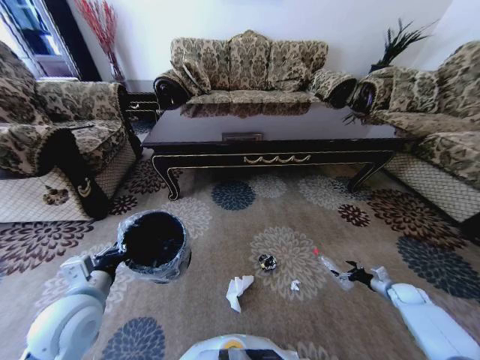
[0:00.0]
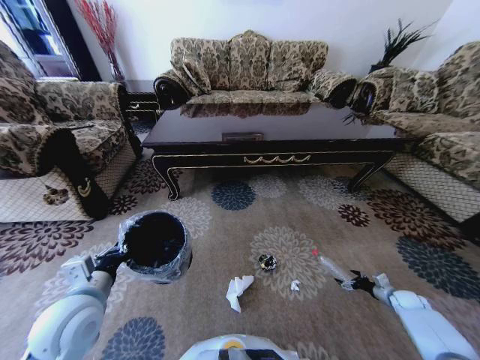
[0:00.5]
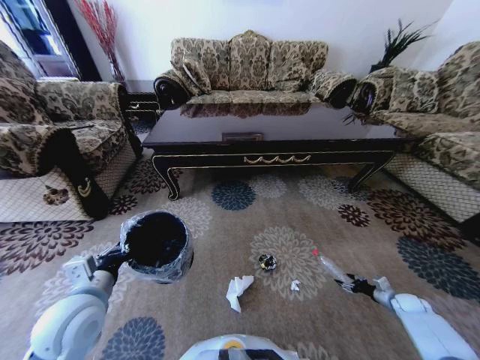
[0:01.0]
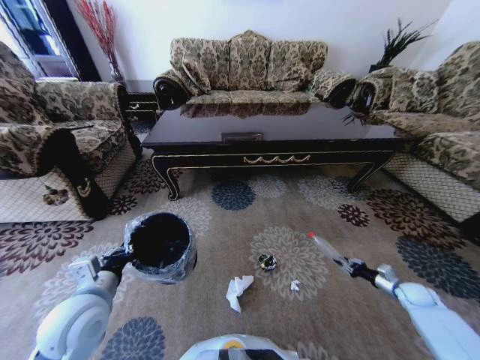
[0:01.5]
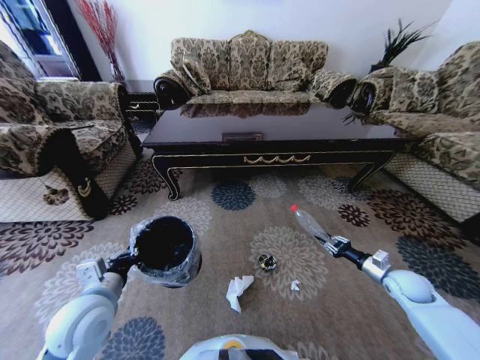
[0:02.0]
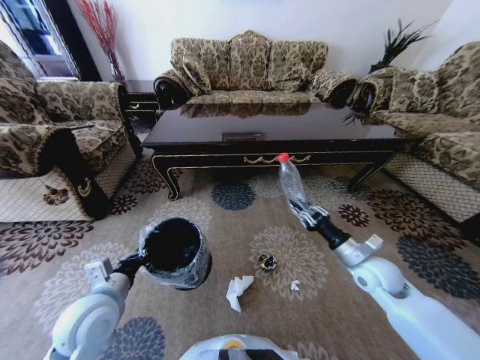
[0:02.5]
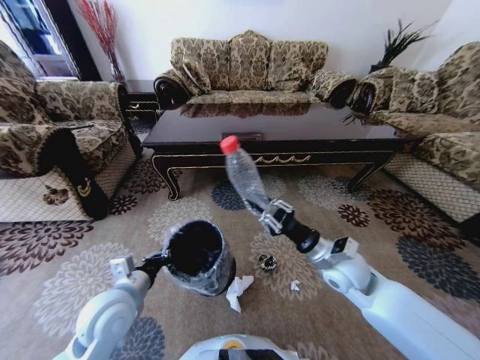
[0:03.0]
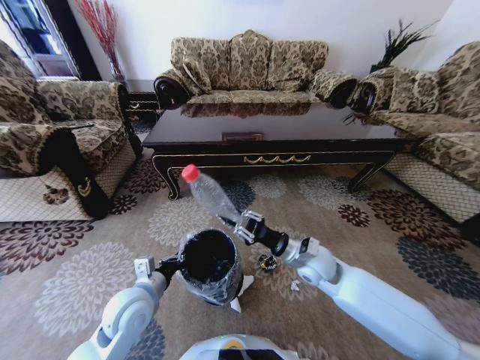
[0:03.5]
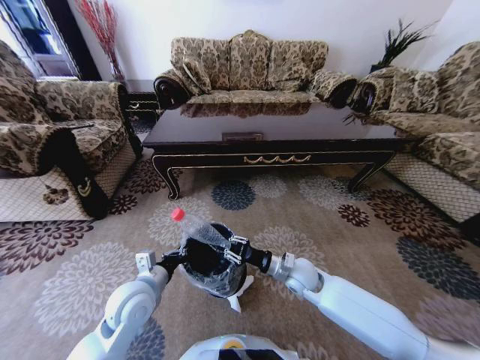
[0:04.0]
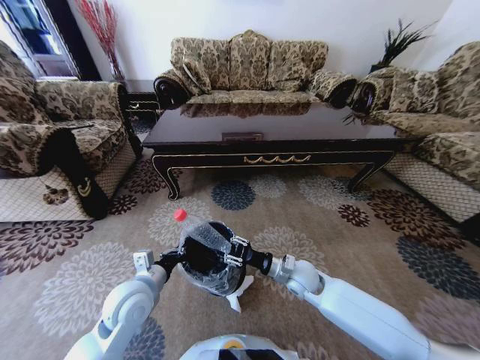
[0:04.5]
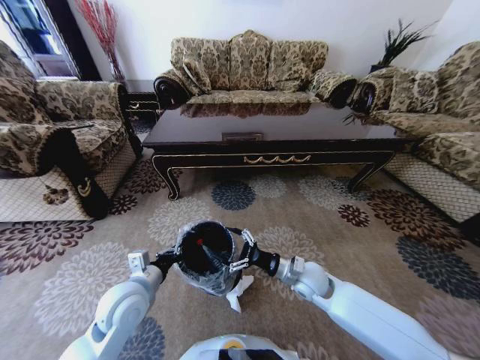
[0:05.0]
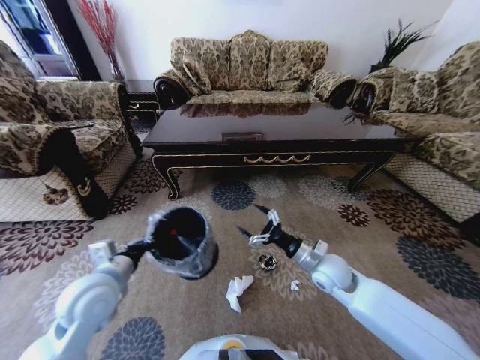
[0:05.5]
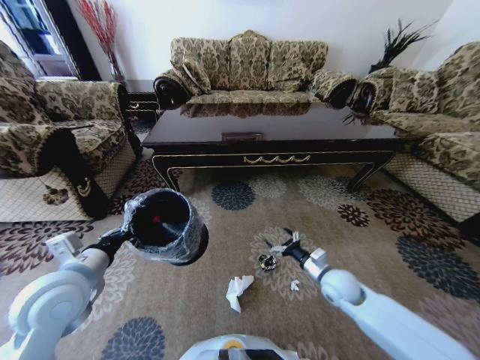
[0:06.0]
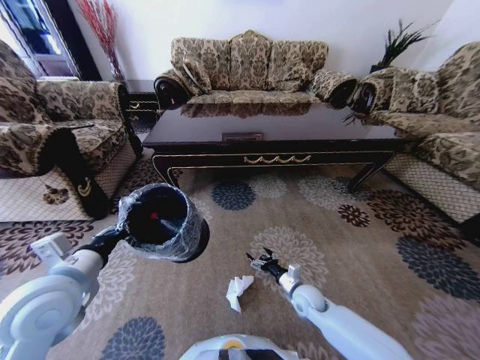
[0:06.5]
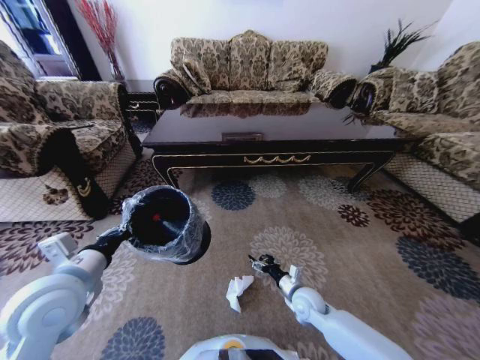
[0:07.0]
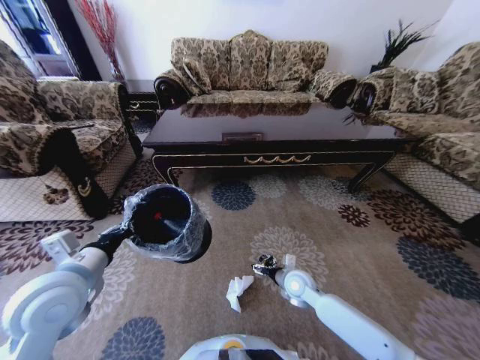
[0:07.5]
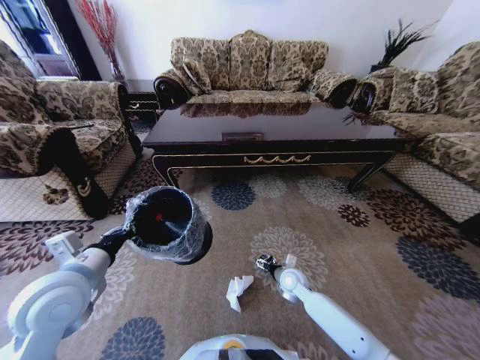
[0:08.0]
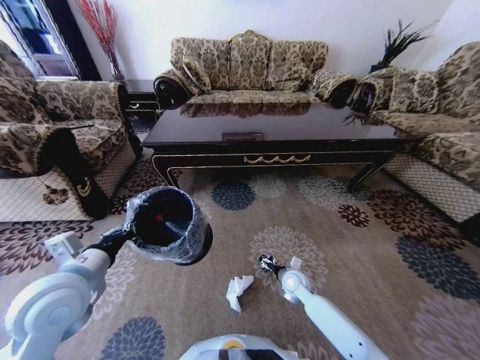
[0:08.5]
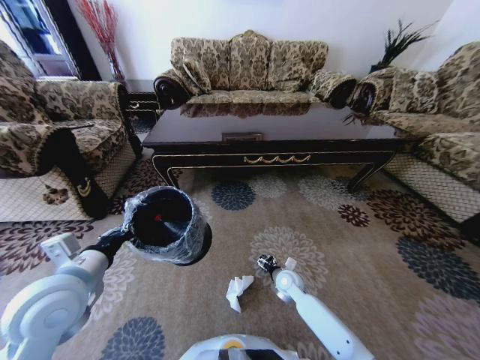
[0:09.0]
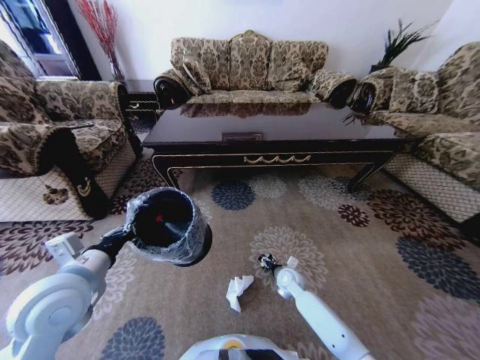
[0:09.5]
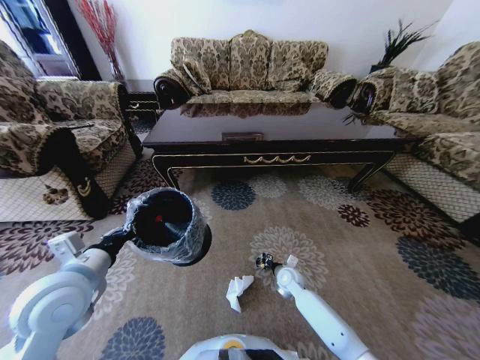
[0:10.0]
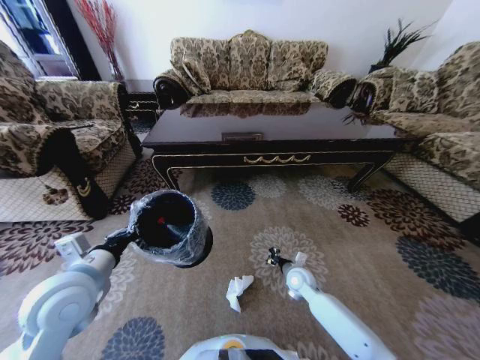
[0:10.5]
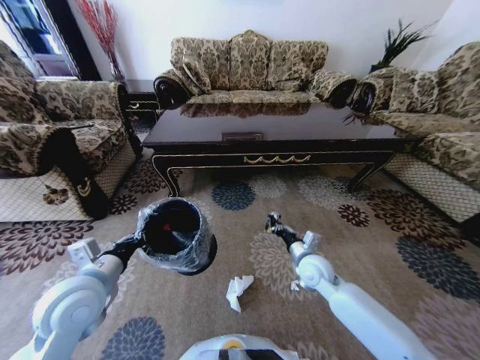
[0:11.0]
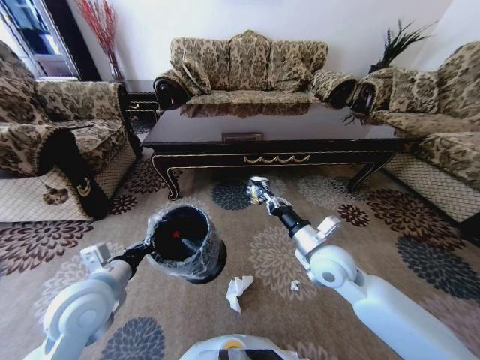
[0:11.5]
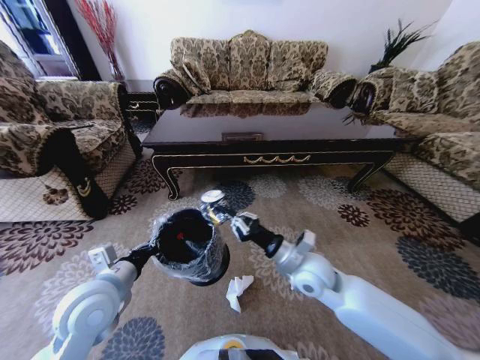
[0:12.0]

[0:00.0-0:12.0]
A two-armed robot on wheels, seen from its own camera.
Task of the whole recording: Move to the front of the table and pick up the trash from the floor, then place it into the trash bin.
0:00.0 to 0:02.0: The right gripper heads upward and to the left, covering approximately 15 cm, and closes.
0:02.0 to 0:04.0: The left gripper heads to the right, covering roughly 5 cm; the right gripper is displaced to the left by approximately 30 cm.
0:04.0 to 0:06.0: The left gripper goes about 15 cm upward and to the left; the right gripper goes roughly 10 cm to the right, and opens its fingers.
0:06.0 to 0:08.0: The right gripper travels to the left and downward by some 15 cm.
0:08.0 to 0:10.0: The right gripper closes.
0:10.0 to 0:12.0: The right gripper goes approximately 25 cm upward, while the left gripper moves roughly 5 cm.

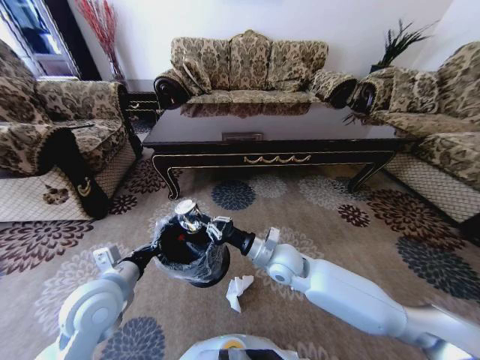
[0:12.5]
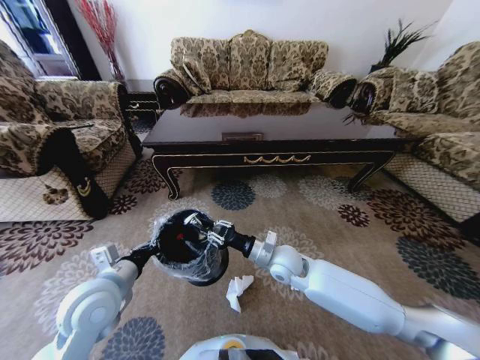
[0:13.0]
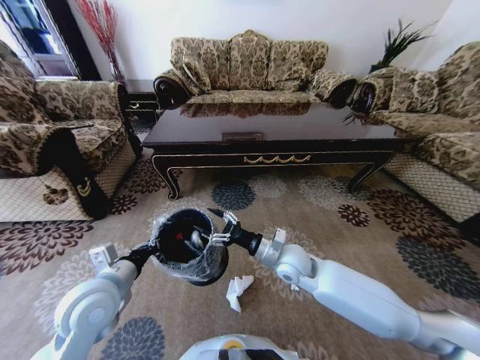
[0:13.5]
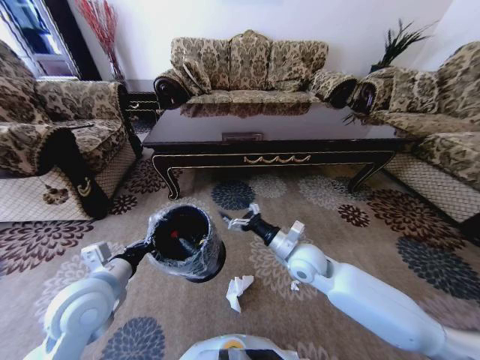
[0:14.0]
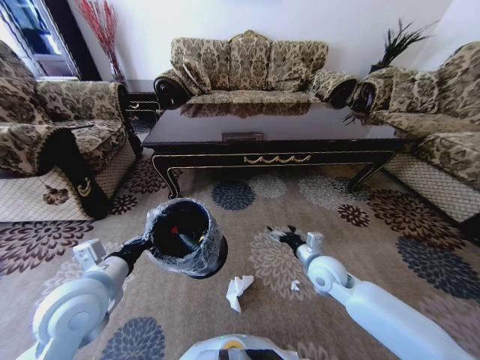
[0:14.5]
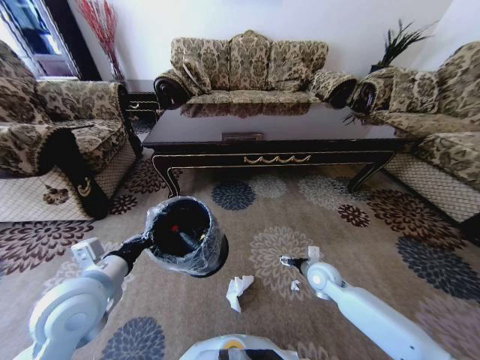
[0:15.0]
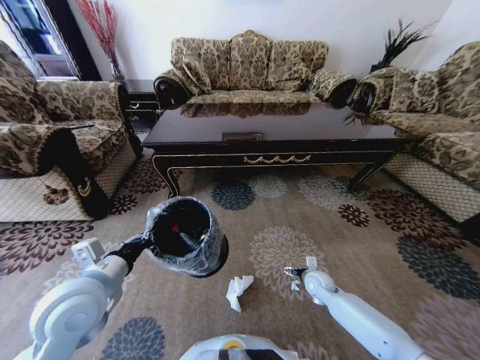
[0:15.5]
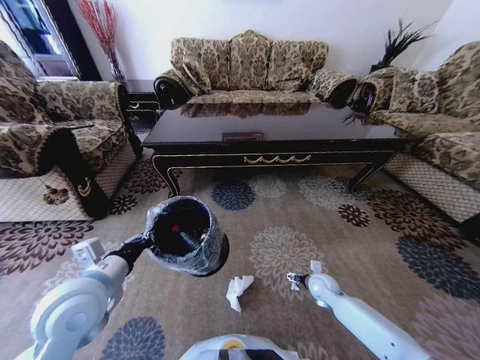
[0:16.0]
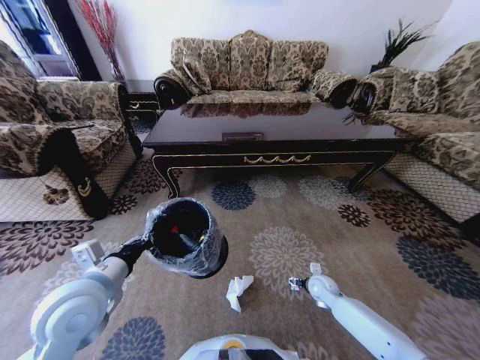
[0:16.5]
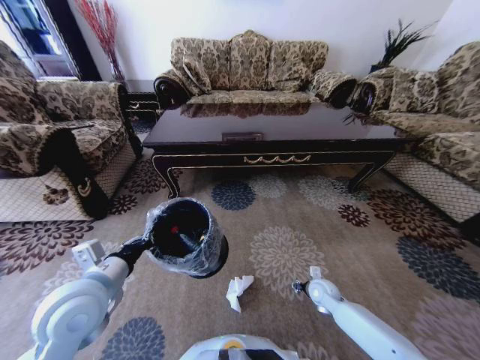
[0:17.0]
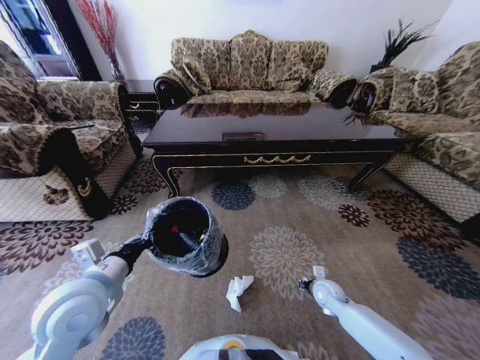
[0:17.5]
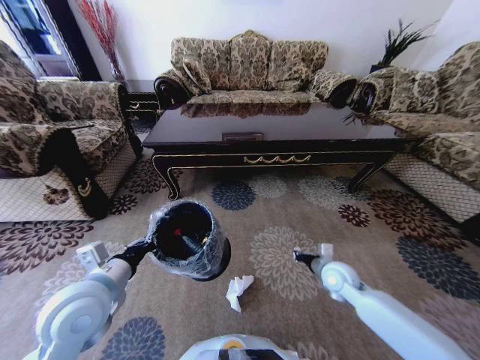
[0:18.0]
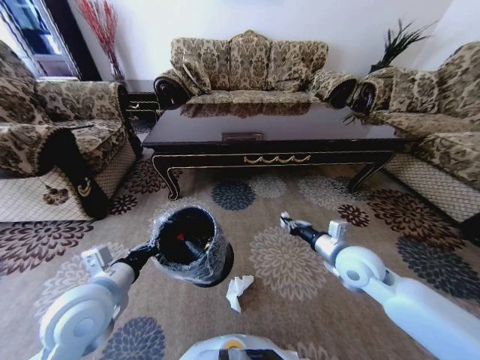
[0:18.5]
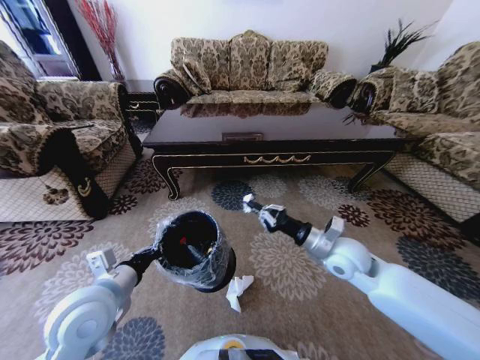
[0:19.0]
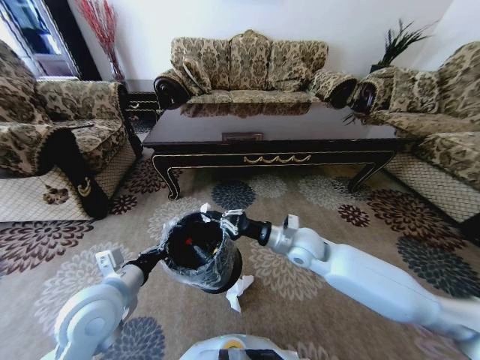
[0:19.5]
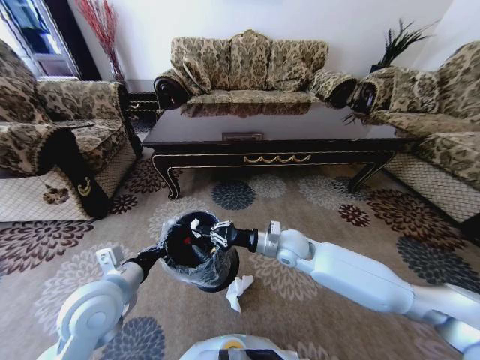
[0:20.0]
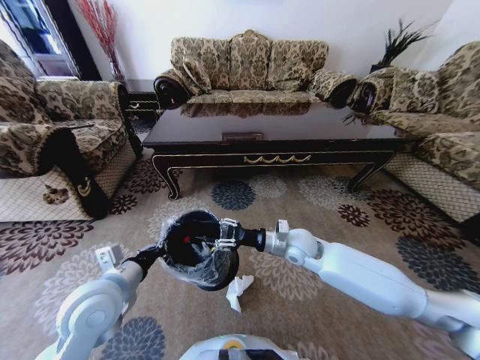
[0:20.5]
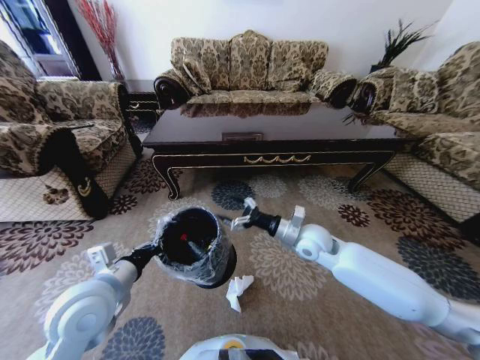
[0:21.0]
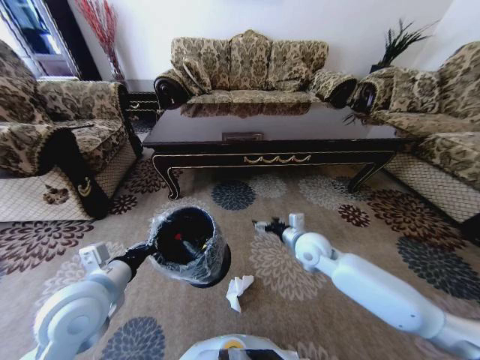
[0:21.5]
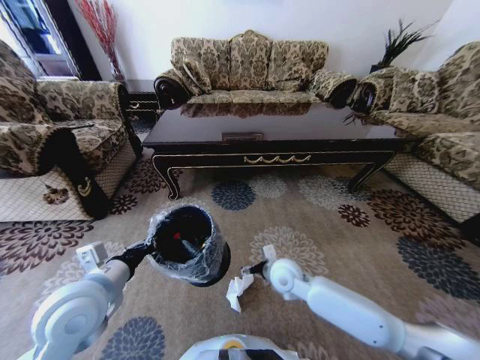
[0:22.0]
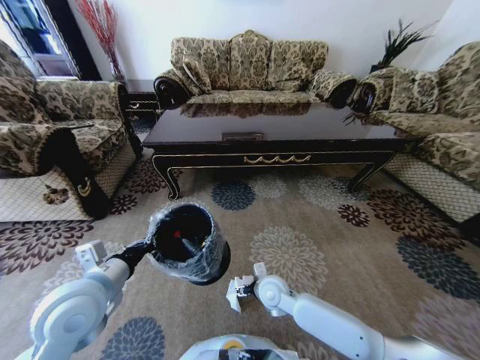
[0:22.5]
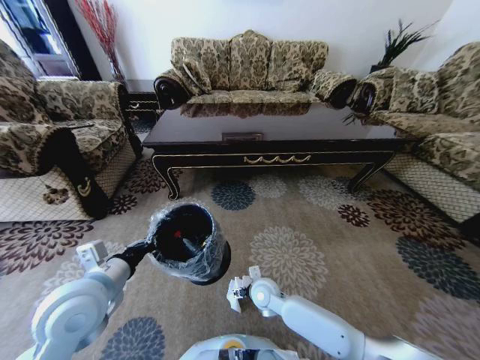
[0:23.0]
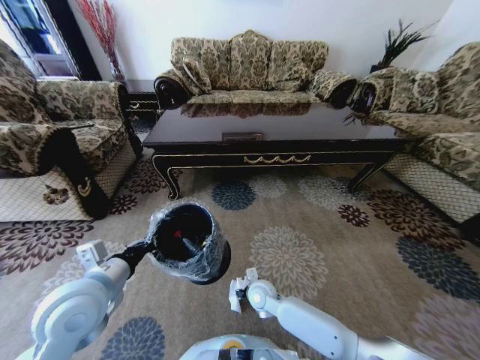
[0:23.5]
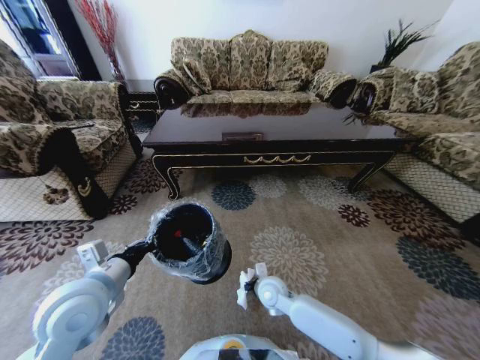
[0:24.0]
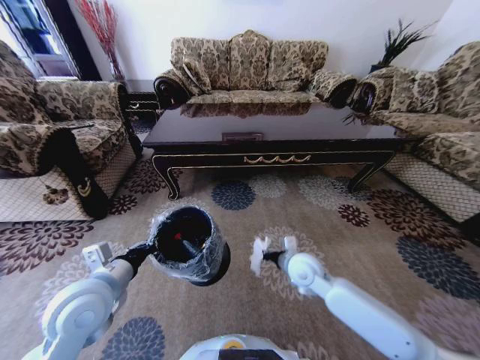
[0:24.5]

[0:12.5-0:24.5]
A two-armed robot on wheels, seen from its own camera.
Task of the whole recording: Move to the front of the table and pick up the trash from the floor, then place it into the trash bin.
0:12.5 to 0:14.5: The right gripper goes about 15 cm to the right, and opens up.
0:14.5 to 0:16.5: The right gripper goes approximately 15 cm downward.
0:16.5 to 0:18.5: The right gripper heads upward, covering some 25 cm, and closes.
0:18.5 to 0:20.5: The right gripper goes about 15 cm to the left and forward, and opens.
0:20.5 to 0:22.5: The right gripper travels downward, backward and to the left by some 15 cm, and opens its fingers.
0:22.5 to 0:24.5: The right gripper moves upward and to the right, roughly 10 cm, and closes up.

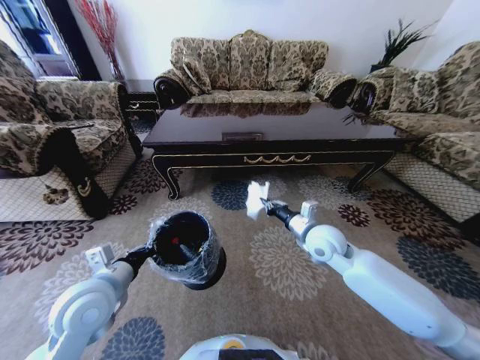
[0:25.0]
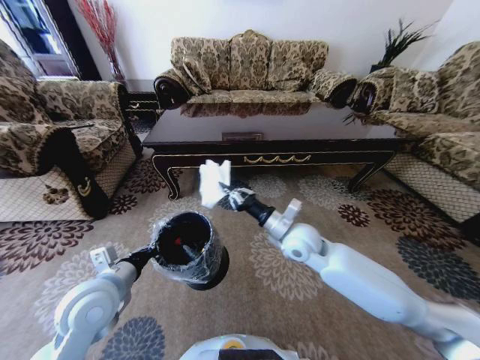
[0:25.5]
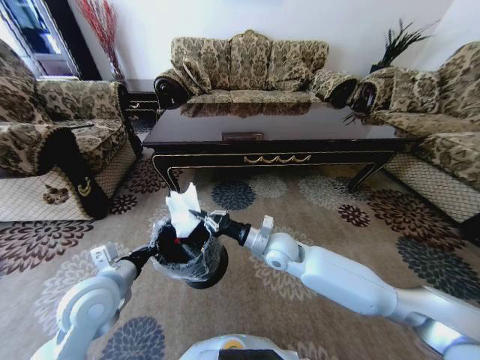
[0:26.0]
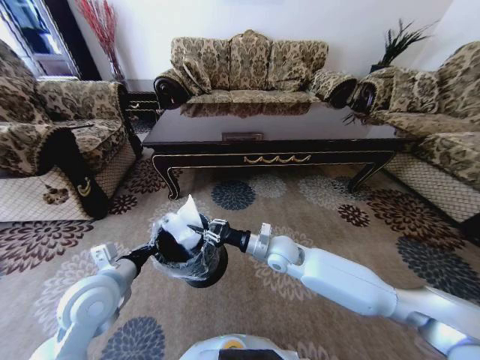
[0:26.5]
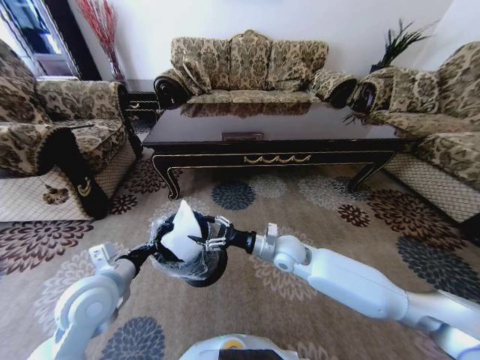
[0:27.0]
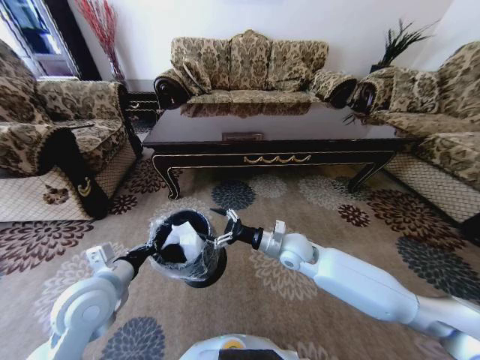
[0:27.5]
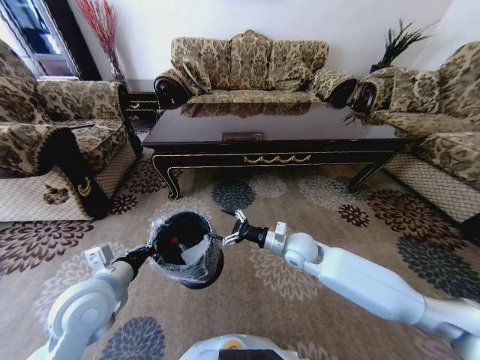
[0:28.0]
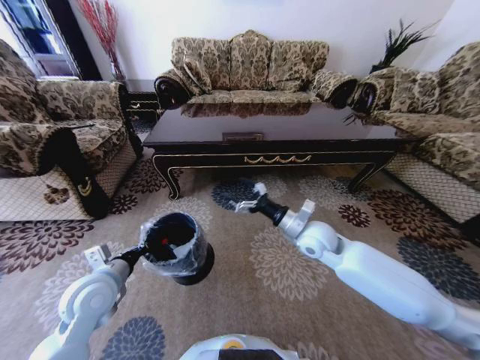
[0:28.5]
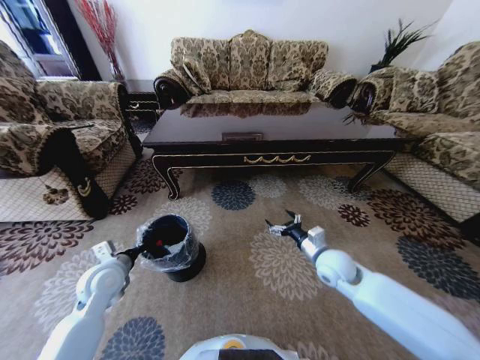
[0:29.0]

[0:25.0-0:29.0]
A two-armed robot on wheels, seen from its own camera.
Task of the whole recording: Move to the front of the table and pick up the trash from the floor, then place it into the trash bin.
0:25.0 to 0:27.0: The right gripper moves to the left and downward, about 10 cm, and opens up.
0:27.0 to 0:29.0: The left gripper heads downward and forward, covering roughly 10 cm. Meanwhile the right gripper is displaced to the right by roughly 15 cm.
